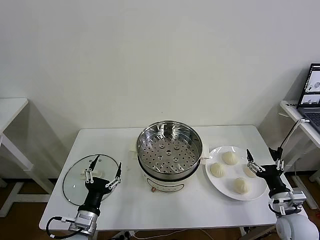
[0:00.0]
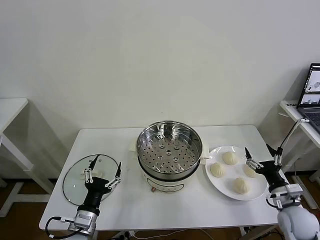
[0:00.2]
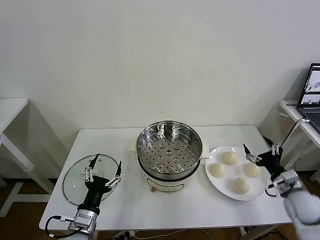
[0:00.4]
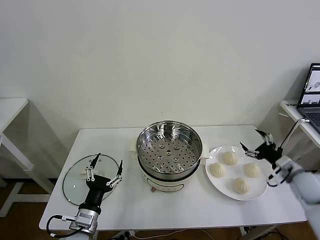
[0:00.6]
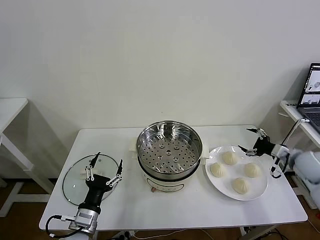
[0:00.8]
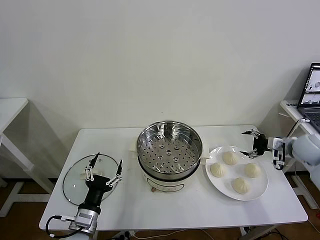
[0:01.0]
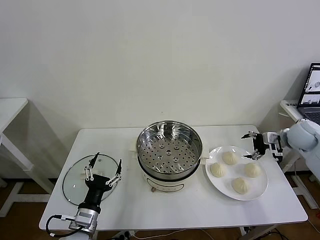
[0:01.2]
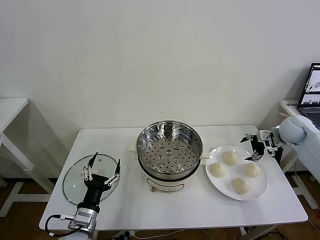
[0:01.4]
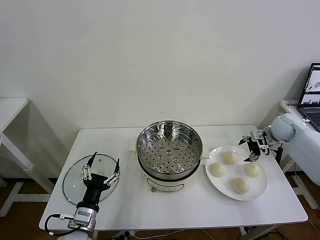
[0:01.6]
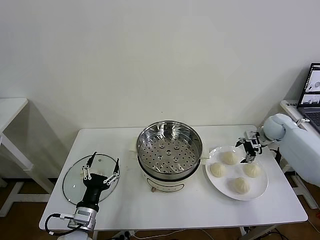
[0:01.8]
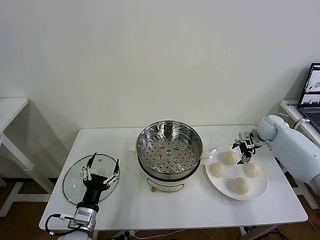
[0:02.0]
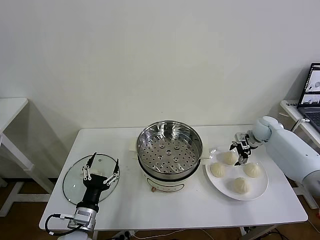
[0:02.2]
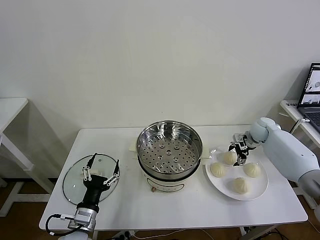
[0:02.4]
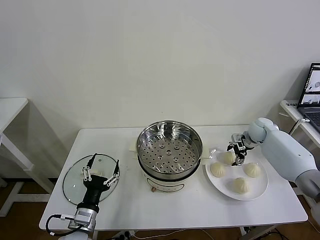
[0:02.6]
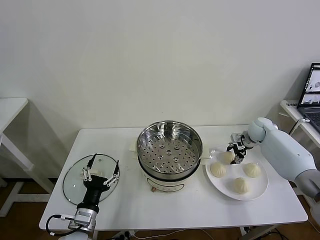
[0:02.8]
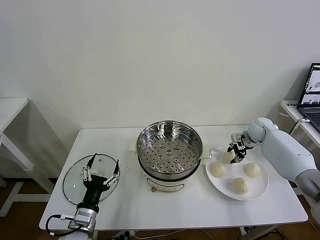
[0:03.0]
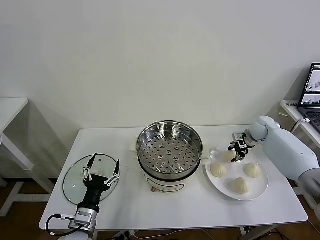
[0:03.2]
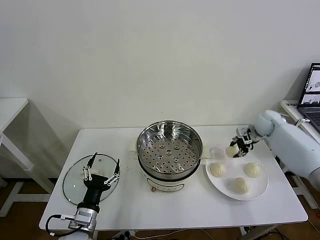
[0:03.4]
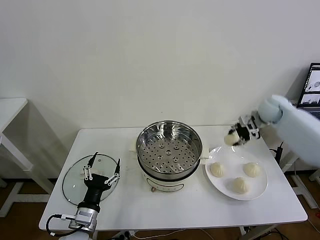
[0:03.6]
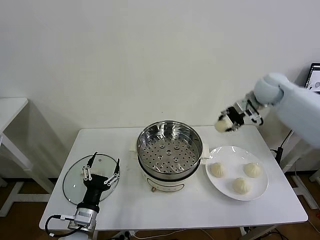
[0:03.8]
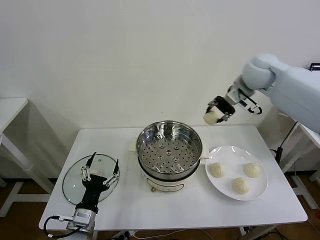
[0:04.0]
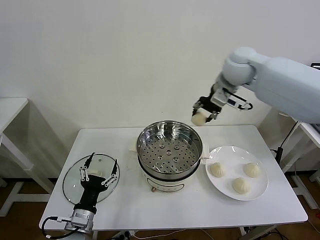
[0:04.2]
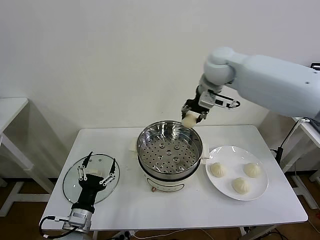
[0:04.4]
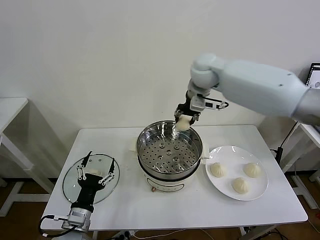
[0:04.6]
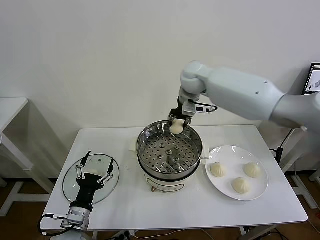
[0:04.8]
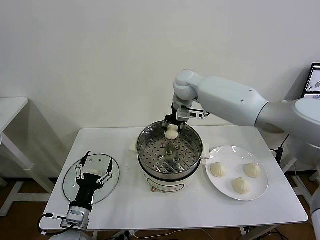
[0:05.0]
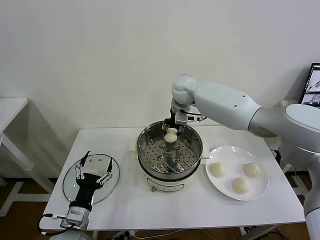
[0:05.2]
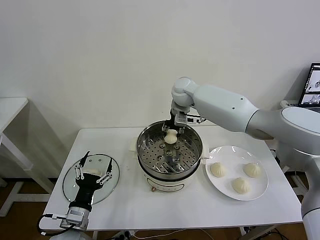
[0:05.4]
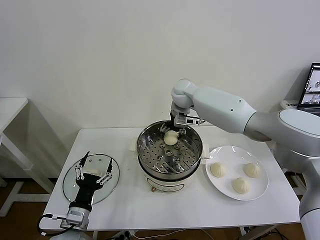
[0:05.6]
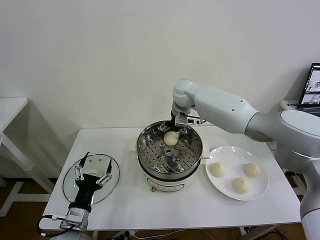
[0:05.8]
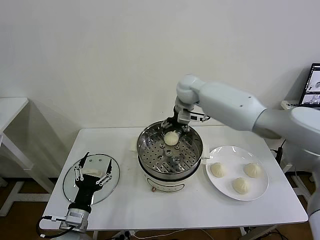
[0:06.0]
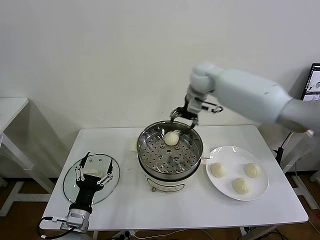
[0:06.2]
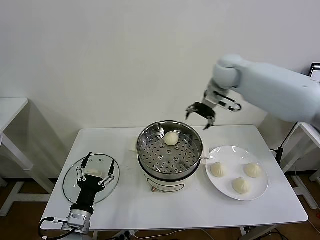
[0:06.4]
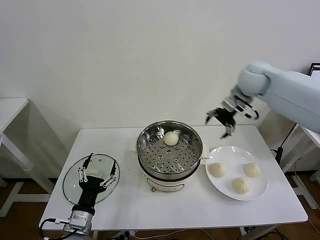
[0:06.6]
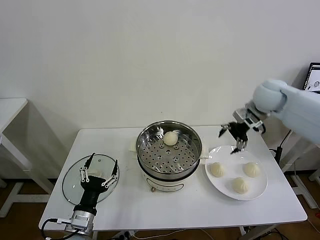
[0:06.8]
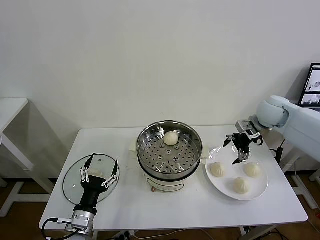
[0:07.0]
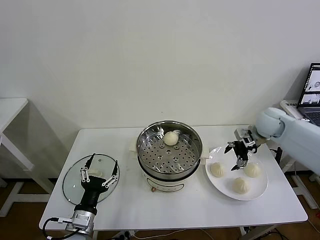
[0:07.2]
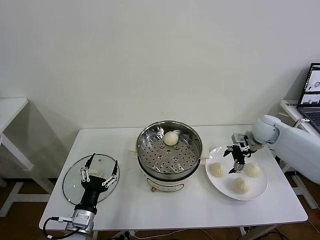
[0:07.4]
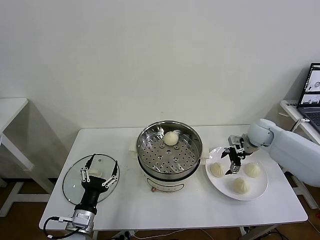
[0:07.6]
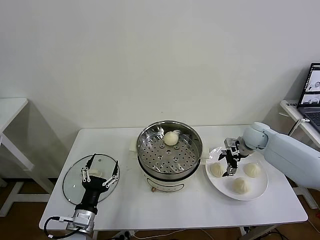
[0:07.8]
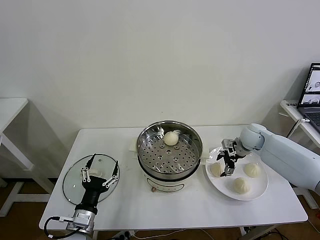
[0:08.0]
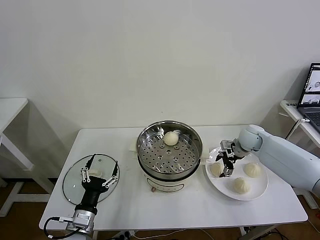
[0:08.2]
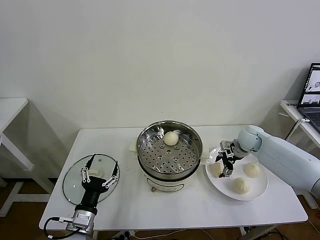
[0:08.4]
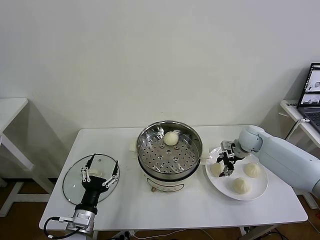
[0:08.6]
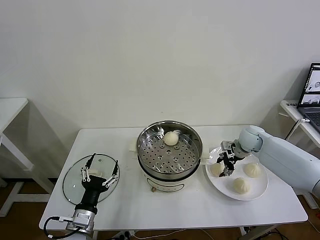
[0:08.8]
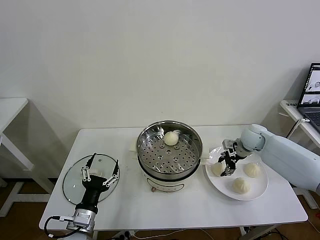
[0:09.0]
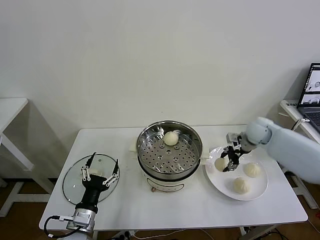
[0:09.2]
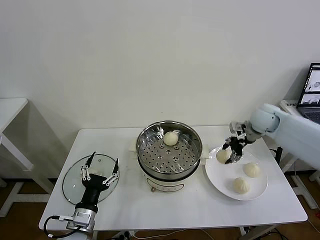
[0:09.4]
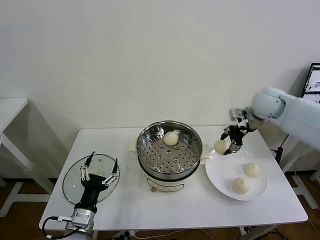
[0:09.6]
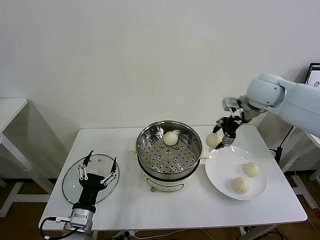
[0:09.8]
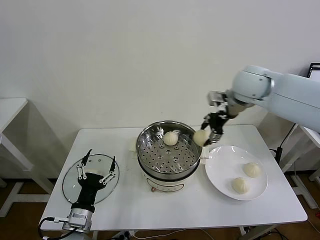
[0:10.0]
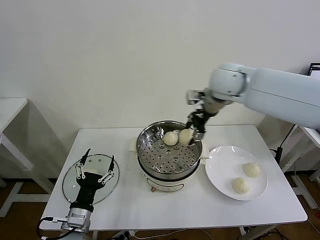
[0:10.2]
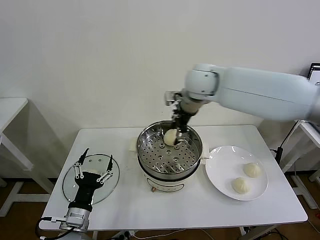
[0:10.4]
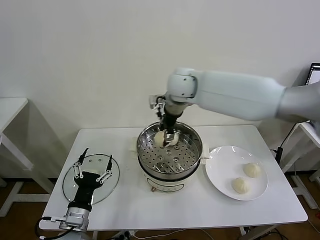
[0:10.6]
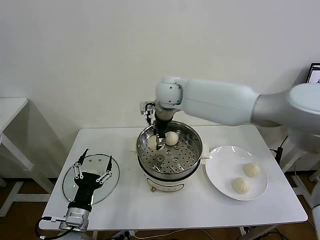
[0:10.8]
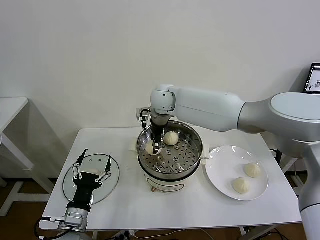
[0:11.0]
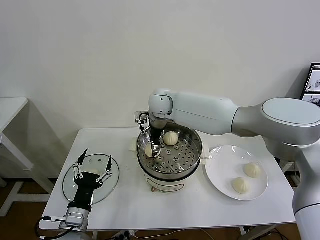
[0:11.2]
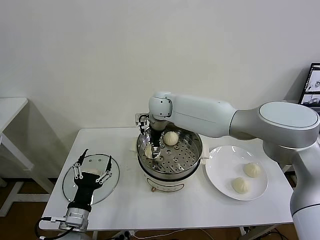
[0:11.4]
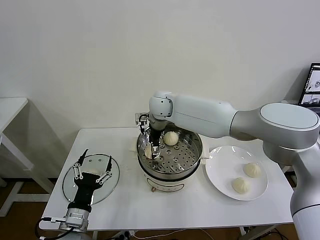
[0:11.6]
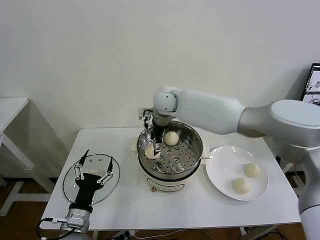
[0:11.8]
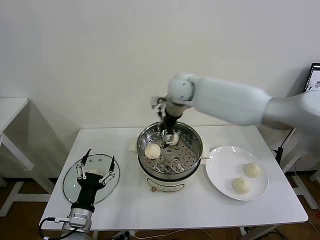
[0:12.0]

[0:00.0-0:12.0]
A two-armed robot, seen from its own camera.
Task of the whole recording: take steamed baozi put them in steamer then cover it.
Step, 0:00.0 to 0:02.6: Grasp the baozi in the plate with right gripper.
Step, 0:02.8 to 0:05.8: Place the baozi on the steamer with right gripper.
Step, 0:06.0 to 0:08.6: Grasp the baozi in the plate with right gripper.
Step, 0:08.8 to 0:11.6: Place the baozi on the steamer with right gripper.
0:01.6 to 0:03.0: The right gripper shifts by some 5 cm, and closes up.
0:03.0 to 0:04.4: The right gripper shifts roughly 40 cm to the left and upward.
0:04.4 to 0:06.0: The right gripper shifts about 5 cm downward, and opens its fingers.
0:06.0 to 0:07.6: The right gripper shifts roughly 30 cm to the right and downward.
0:07.6 to 0:09.0: The right gripper closes its fingers.
0:09.0 to 0:10.4: The right gripper shifts approximately 35 cm to the left and upward.
0:10.4 to 0:12.0: The right gripper reaches some 10 cm downward, then returns, and opens its fingers.

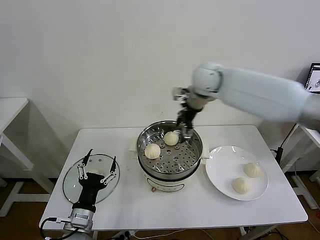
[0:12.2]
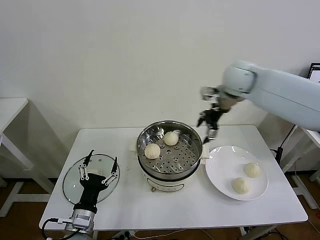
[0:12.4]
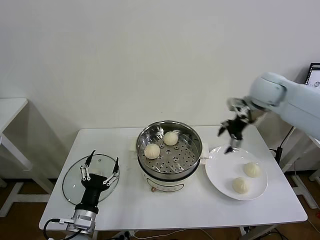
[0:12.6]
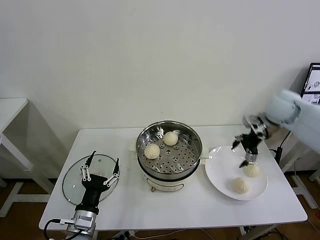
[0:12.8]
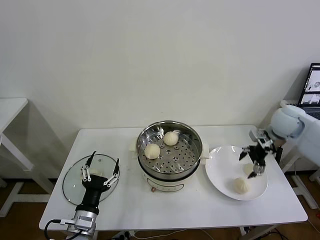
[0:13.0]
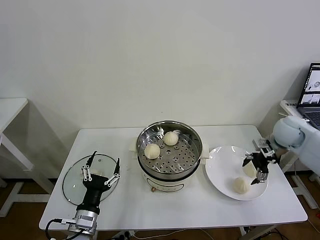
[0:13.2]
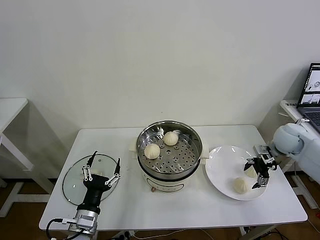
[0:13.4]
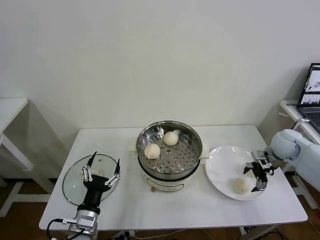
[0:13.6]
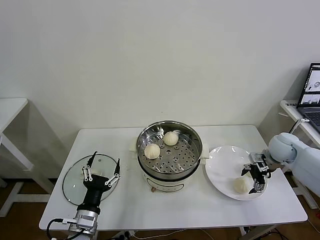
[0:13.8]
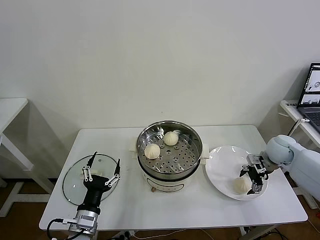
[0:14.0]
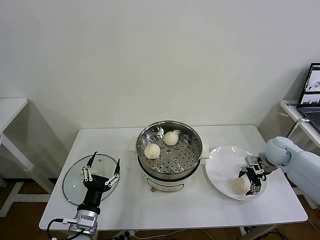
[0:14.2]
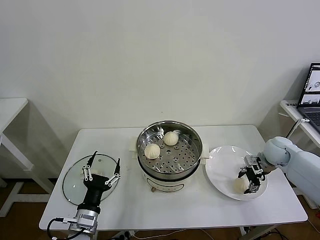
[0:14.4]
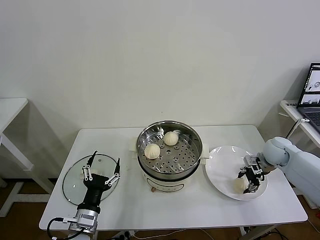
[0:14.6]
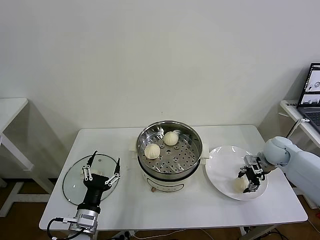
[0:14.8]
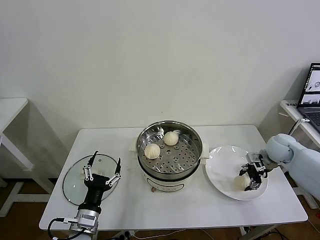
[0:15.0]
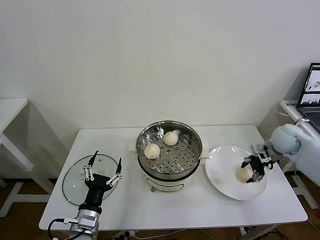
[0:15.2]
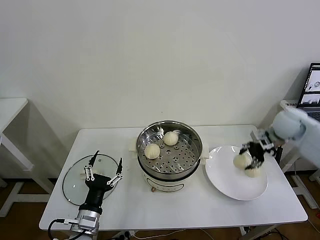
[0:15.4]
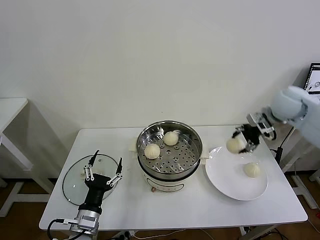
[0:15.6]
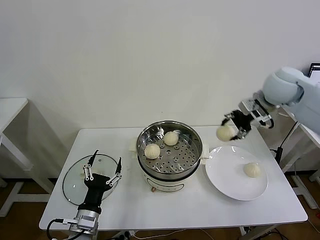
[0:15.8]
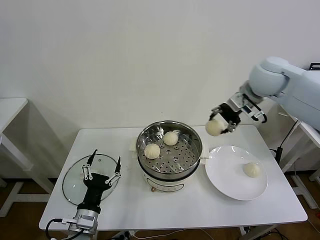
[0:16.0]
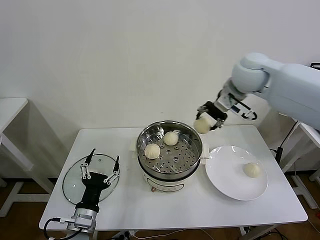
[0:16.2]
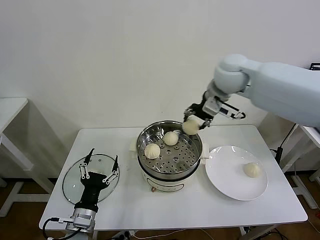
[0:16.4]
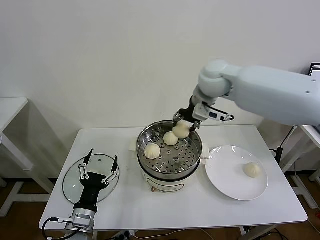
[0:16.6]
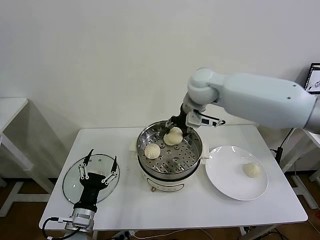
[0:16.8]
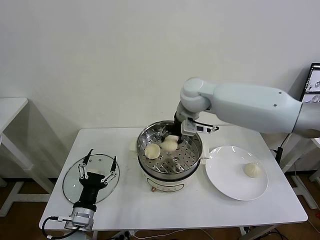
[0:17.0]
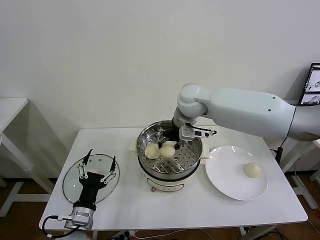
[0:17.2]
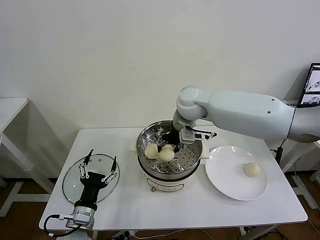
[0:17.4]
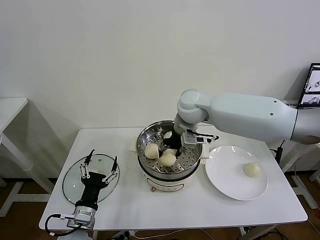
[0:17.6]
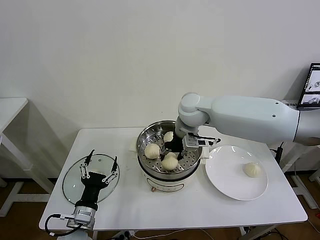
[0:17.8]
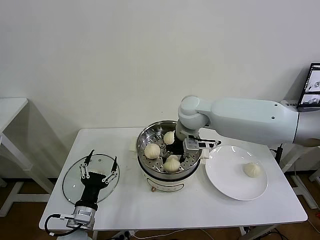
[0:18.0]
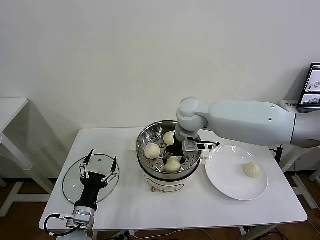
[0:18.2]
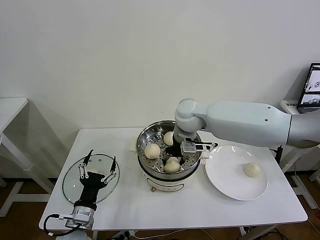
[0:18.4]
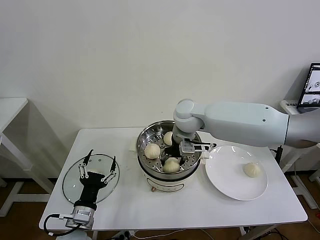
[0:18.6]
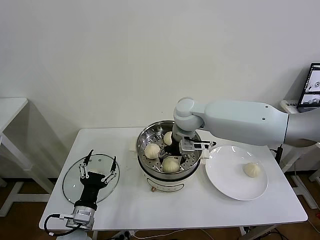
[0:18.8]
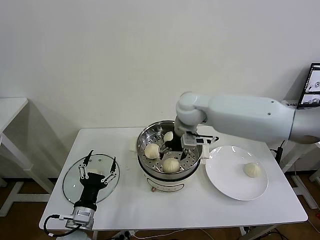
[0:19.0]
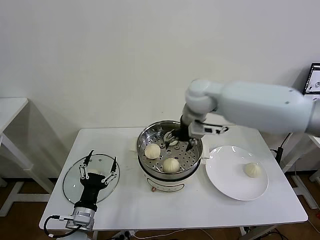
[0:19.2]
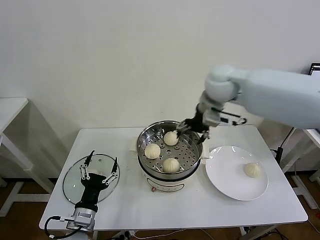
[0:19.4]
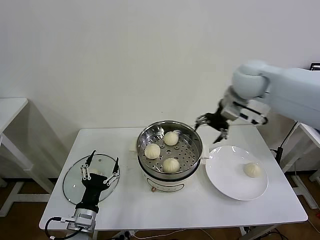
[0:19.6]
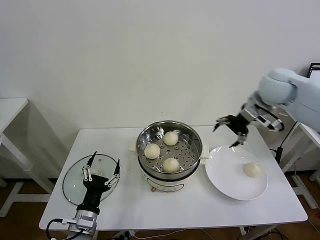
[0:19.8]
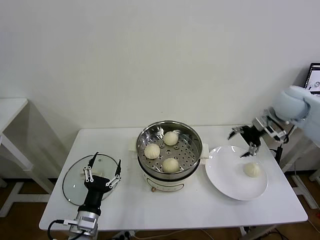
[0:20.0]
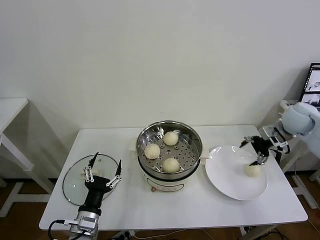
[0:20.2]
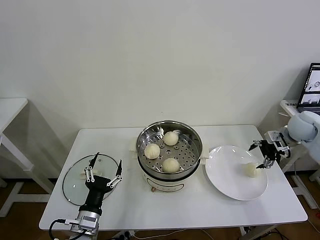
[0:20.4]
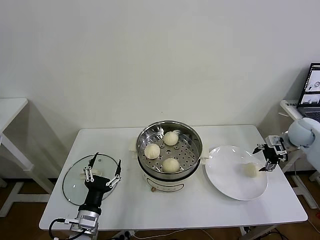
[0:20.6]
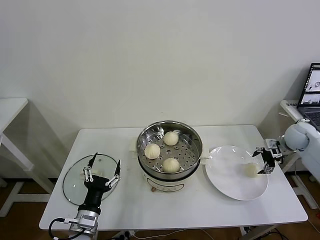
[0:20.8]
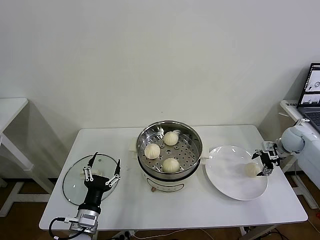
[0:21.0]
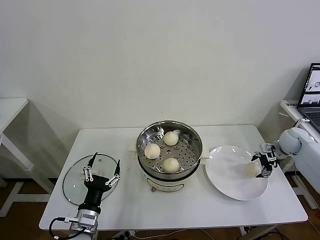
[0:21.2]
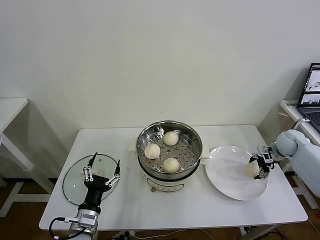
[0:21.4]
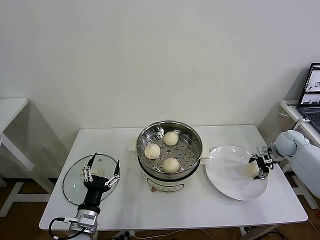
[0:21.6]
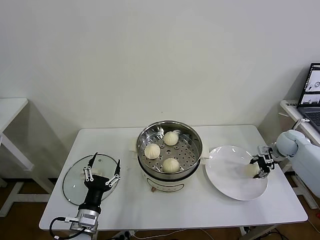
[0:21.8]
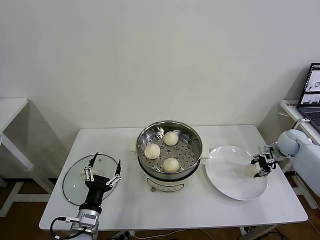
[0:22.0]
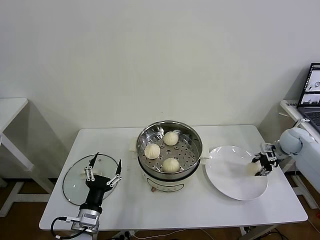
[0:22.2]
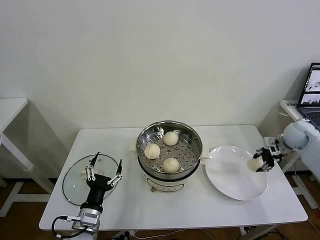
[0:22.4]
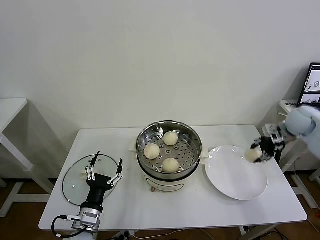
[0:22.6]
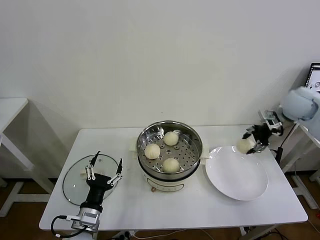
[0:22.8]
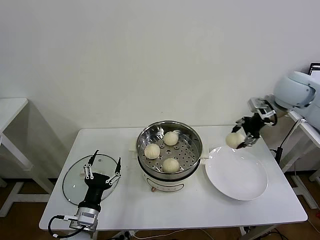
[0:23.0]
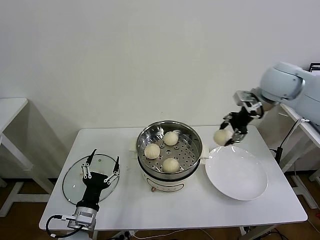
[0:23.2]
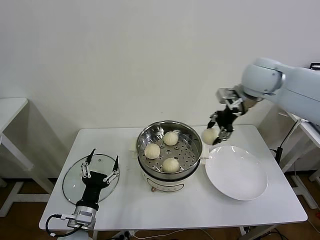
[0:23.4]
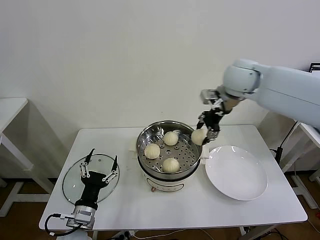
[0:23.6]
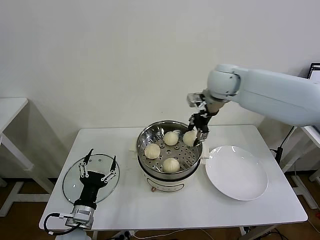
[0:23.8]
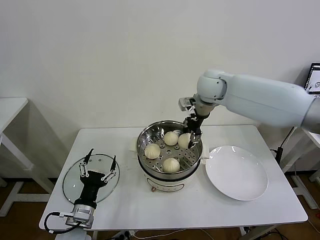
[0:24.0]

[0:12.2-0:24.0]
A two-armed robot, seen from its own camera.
Task of the whole recording: take steamed baozi put them in steamer then cover it.
Step, 0:12.2 to 0:14.4: Grasp the baozi in the plate with right gripper.
Step, 0:14.6 to 0:18.8: Place the baozi on the steamer with right gripper.
Step, 0:19.0 to 0:21.8: Grasp the baozi in the plate with right gripper.
0:12.2 to 0:13.6: The right gripper heads to the right and downward, covering some 35 cm.
0:13.6 to 0:15.2: The right gripper closes its fingers.
0:15.2 to 0:16.6: The right gripper moves to the left and upward, some 35 cm.
0:16.6 to 0:18.2: The right gripper moves downward, roughly 10 cm.
0:18.2 to 0:19.6: The right gripper heads to the right and upward, covering some 20 cm, and opens up.
0:19.6 to 0:21.0: The right gripper is displaced downward and to the right by roughly 35 cm.
0:21.0 to 0:22.6: The right gripper moves upward, some 10 cm, and closes up.
0:22.6 to 0:24.0: The right gripper travels to the left by some 30 cm.
